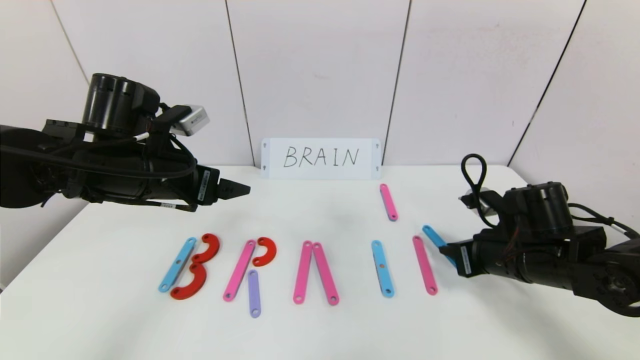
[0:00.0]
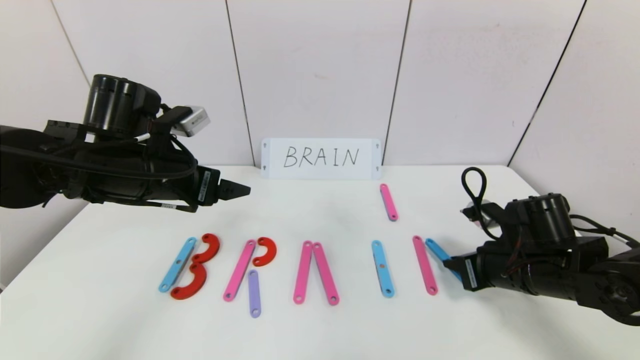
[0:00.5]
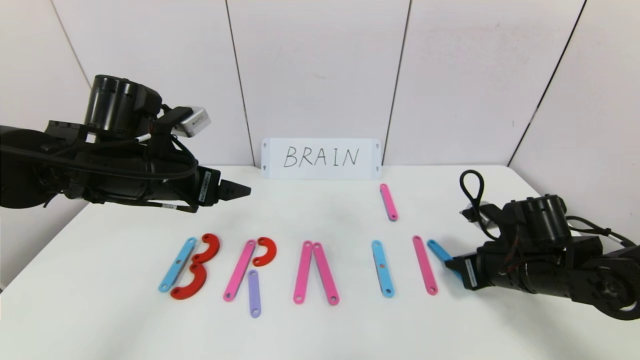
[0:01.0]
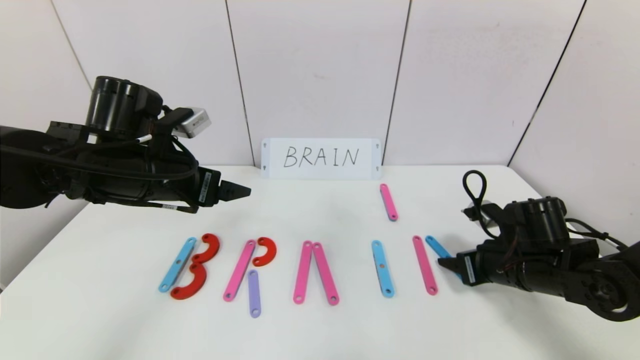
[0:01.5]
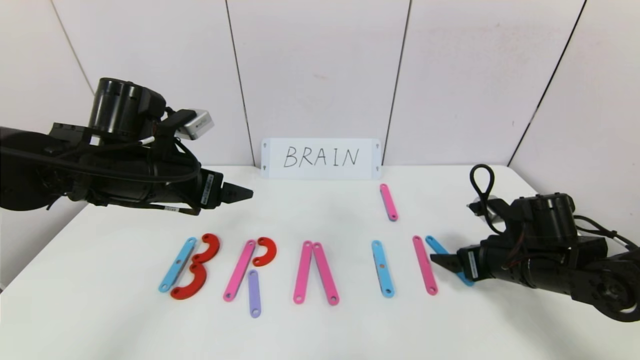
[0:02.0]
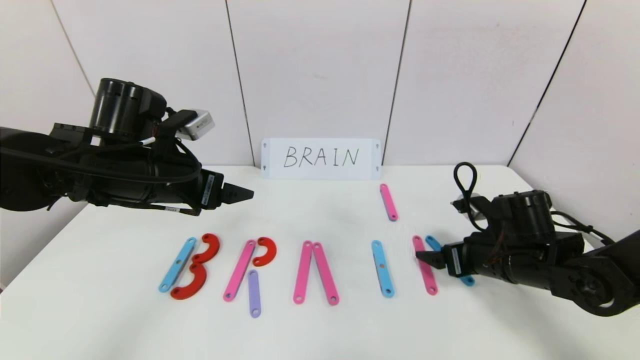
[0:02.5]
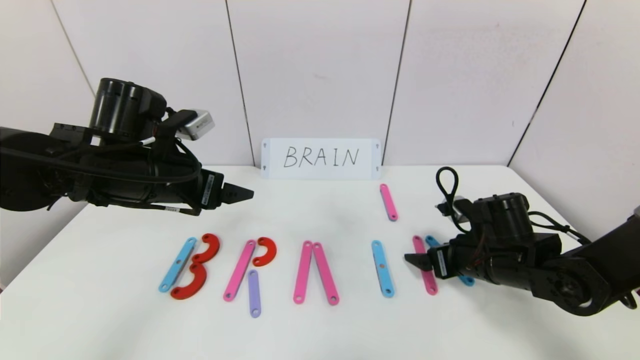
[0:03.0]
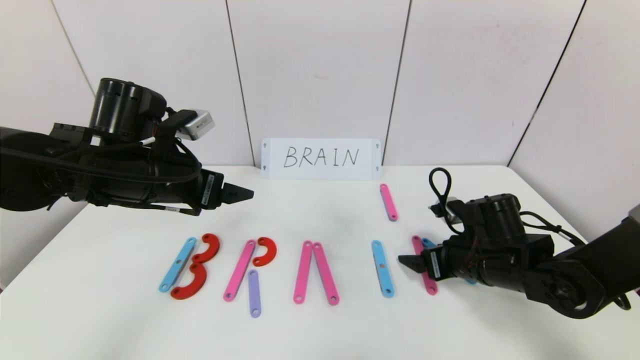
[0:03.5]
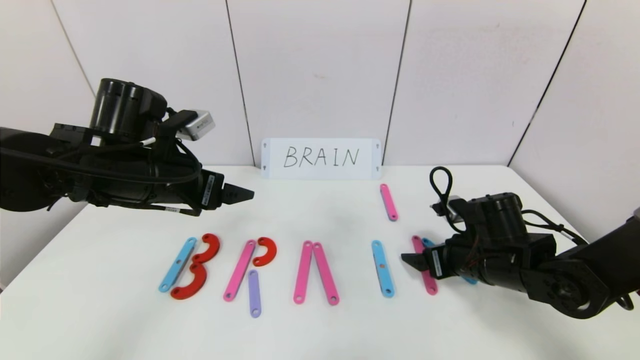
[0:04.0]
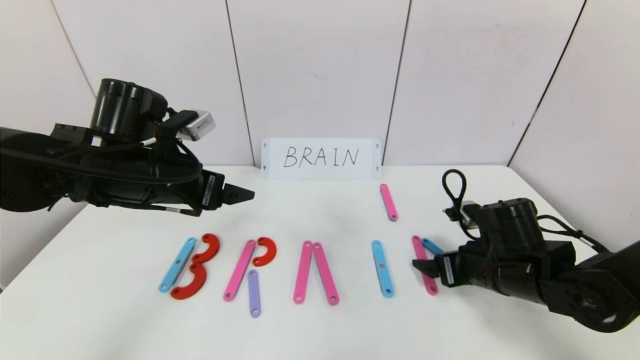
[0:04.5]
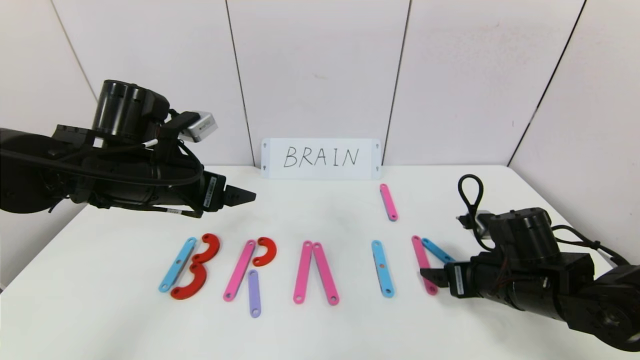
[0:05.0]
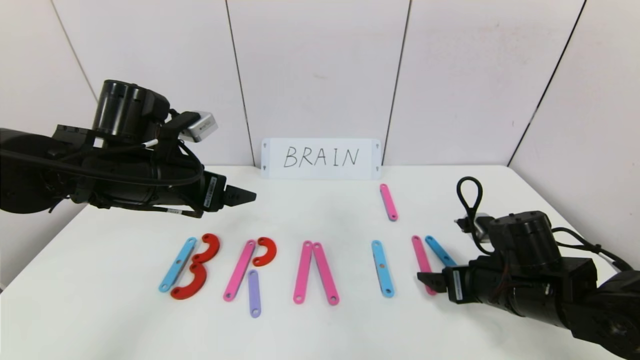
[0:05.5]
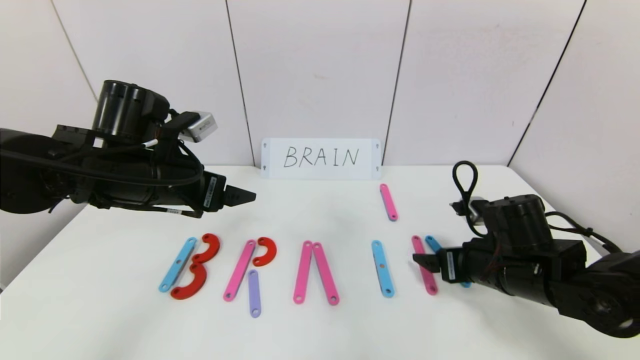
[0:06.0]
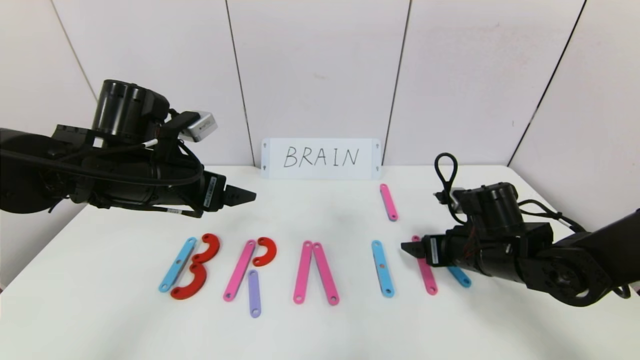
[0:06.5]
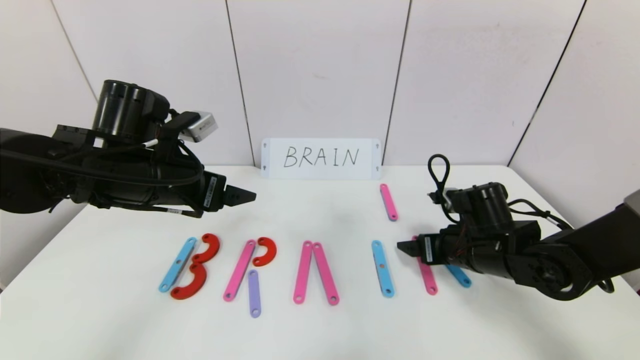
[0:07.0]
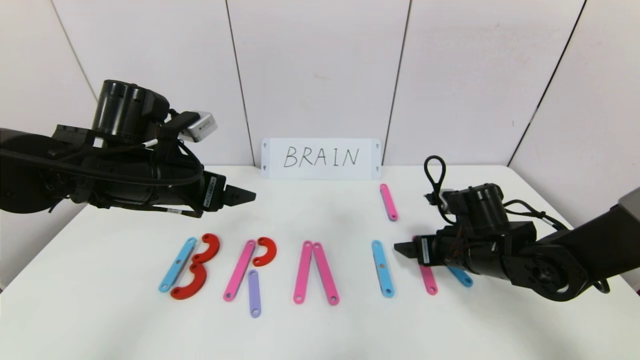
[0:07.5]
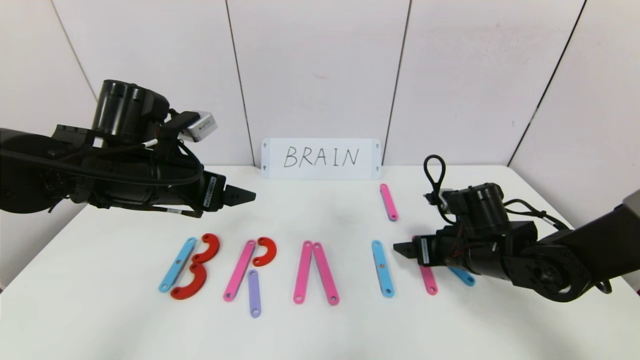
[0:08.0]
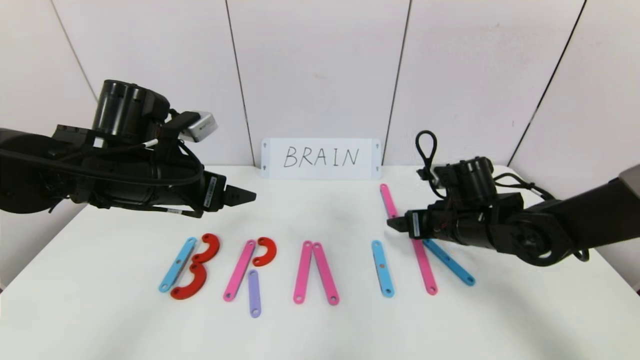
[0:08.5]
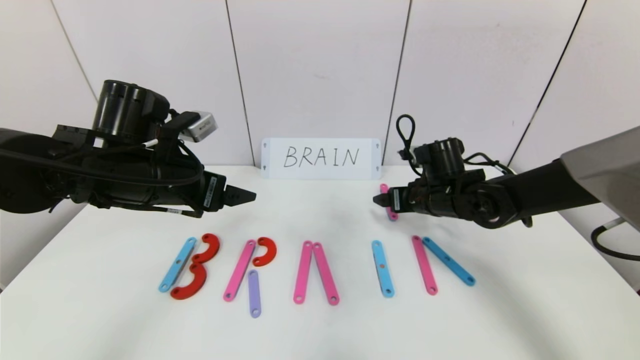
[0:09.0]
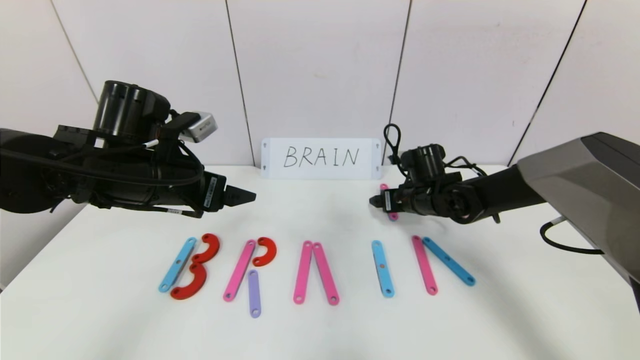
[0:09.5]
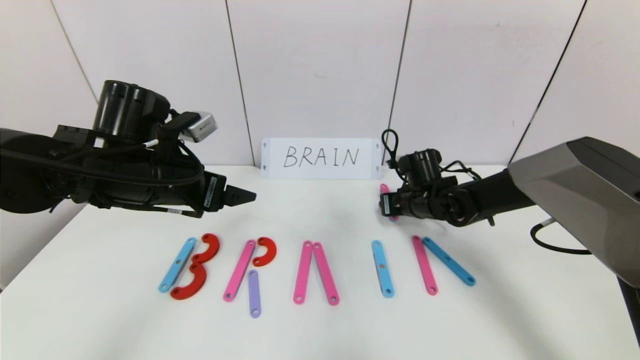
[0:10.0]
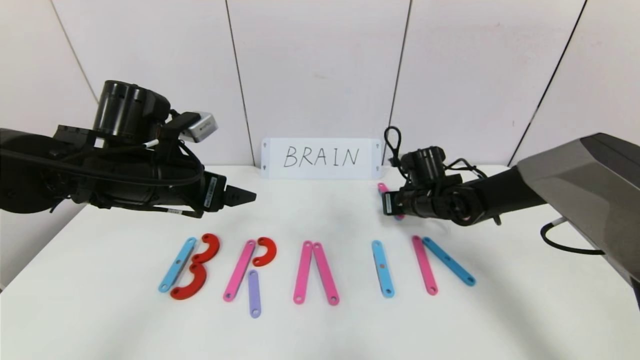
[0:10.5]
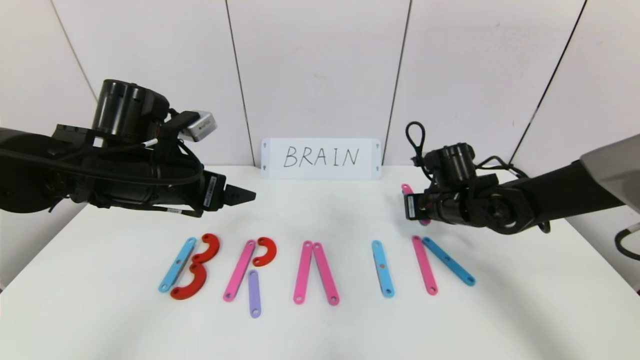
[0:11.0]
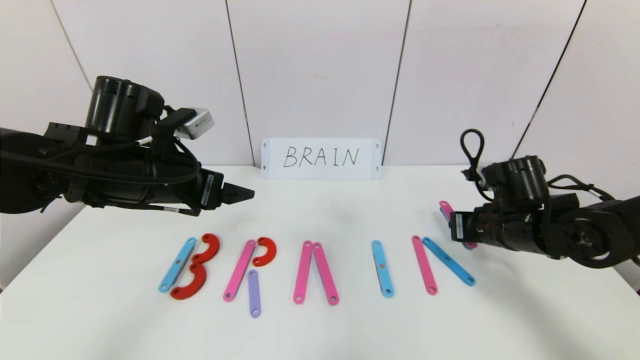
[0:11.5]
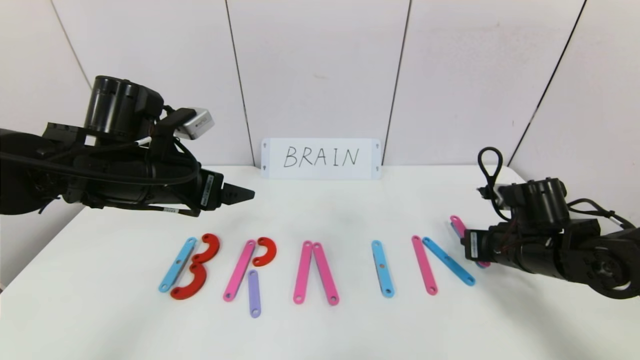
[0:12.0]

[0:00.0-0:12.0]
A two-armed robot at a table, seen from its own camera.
Task of the whole recording: rearrange the word baai as brain.
0:00.0 to 0:02.0: The right gripper opens its fingers.
0:02.0 to 0:04.0: The right gripper moves about 5 cm.
0:04.0 to 0:08.0: There are only small adjustments of the grippers.
0:08.0 to 0:10.0: The right gripper goes approximately 15 cm forward, and closes up.
0:10.0 to 0:12.0: The right gripper moves backward and to the right, some 15 cm.

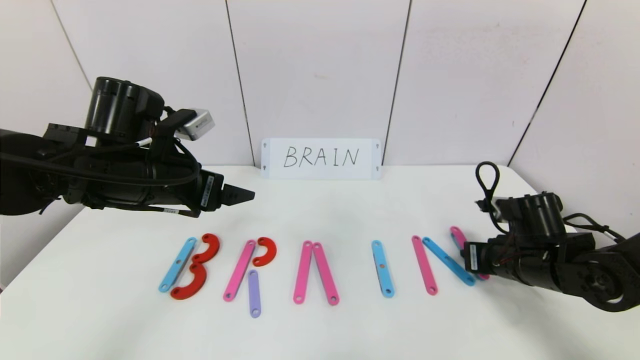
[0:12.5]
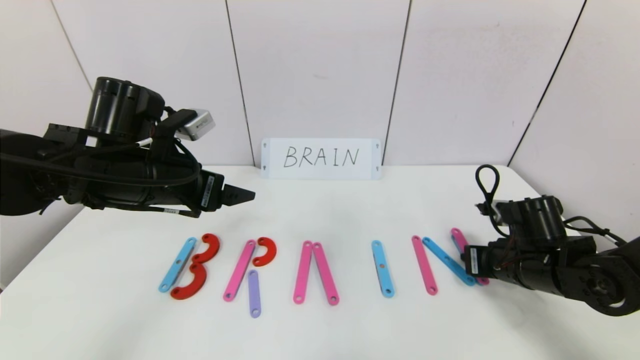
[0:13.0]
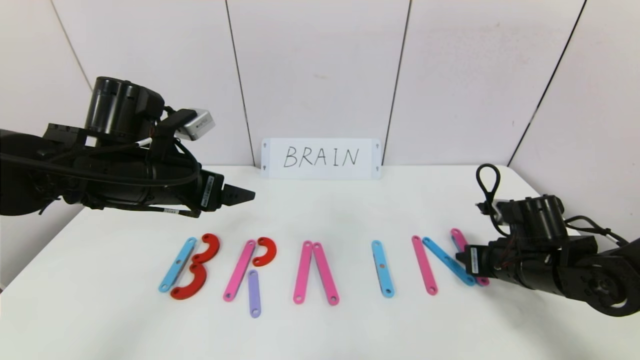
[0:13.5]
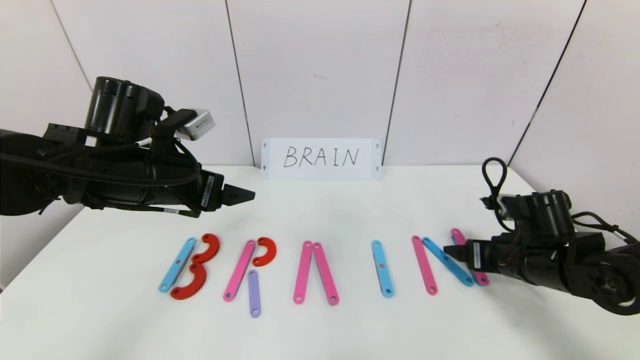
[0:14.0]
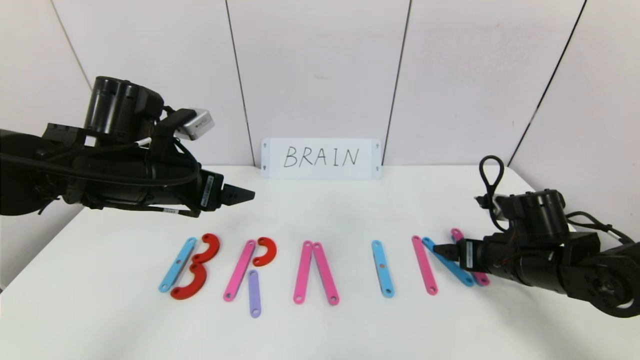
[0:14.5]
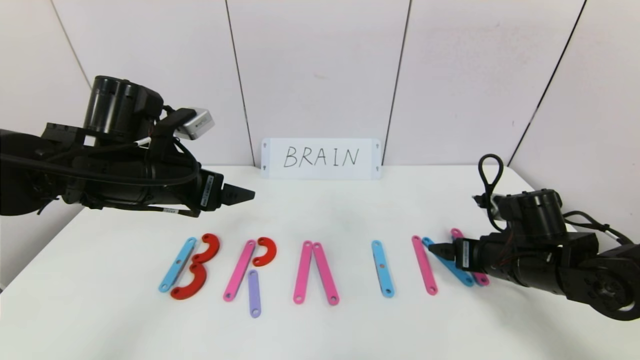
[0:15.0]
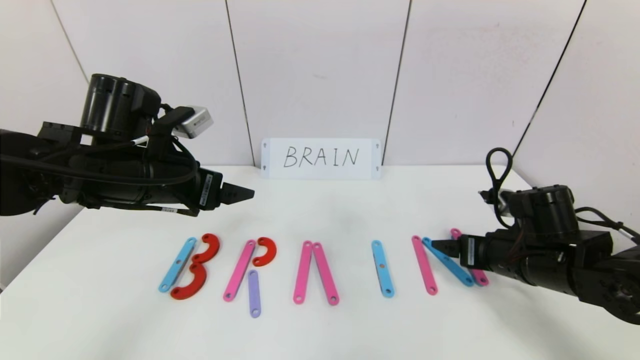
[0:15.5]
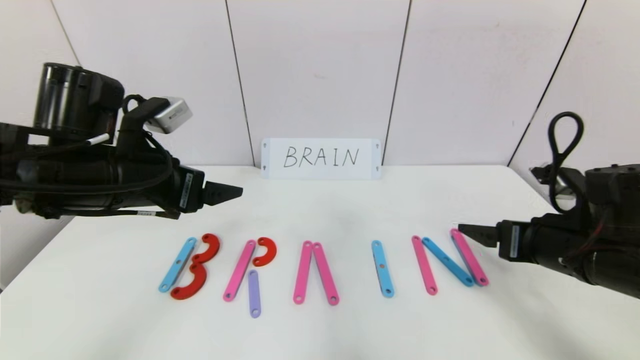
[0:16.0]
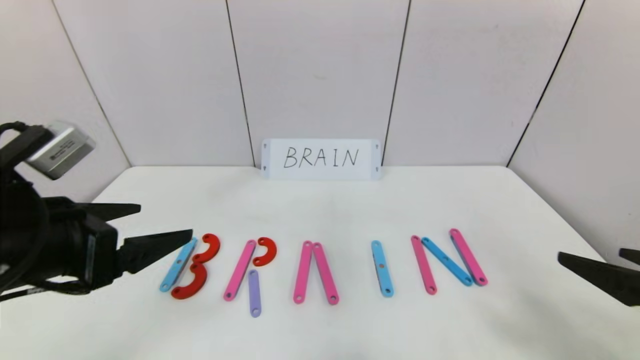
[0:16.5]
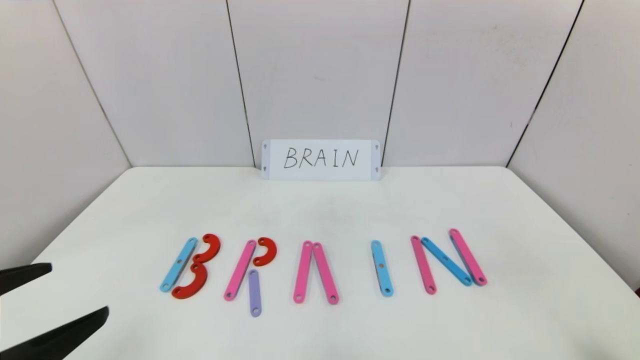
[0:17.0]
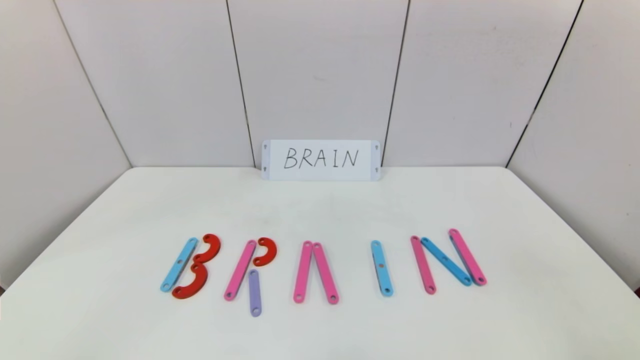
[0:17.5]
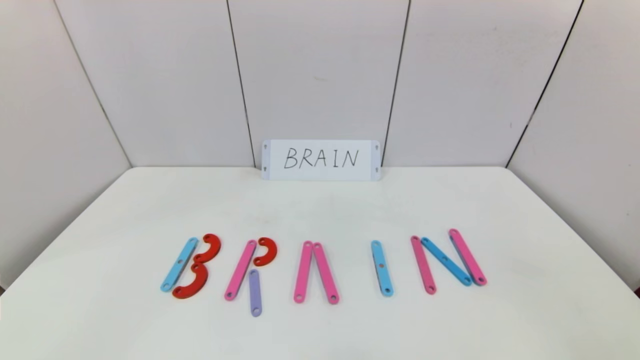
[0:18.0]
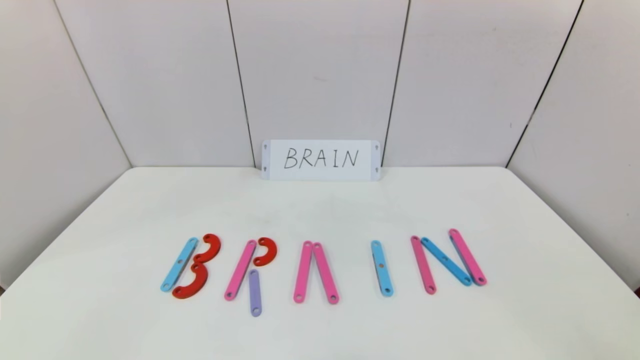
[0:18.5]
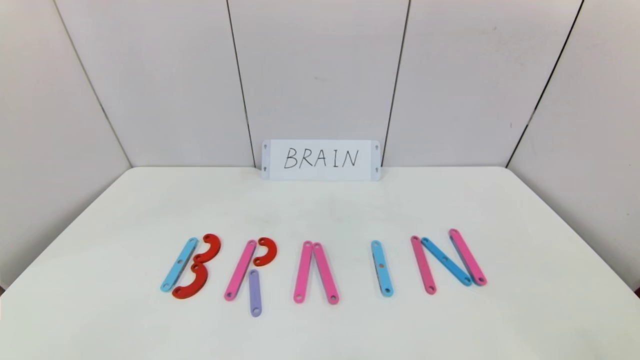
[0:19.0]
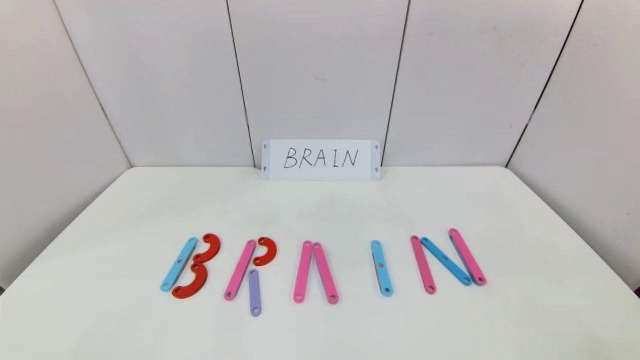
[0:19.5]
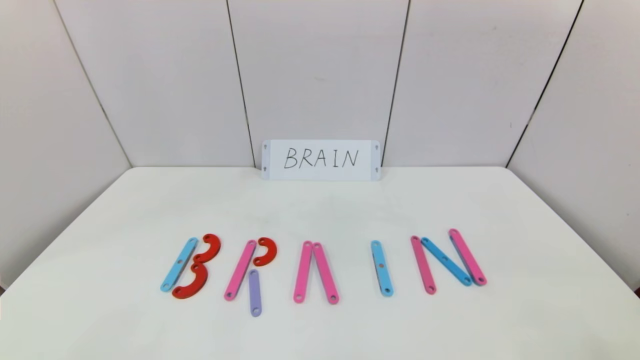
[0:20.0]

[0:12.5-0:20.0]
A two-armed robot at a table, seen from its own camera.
Task of the whole recording: rearrange the word baai as brain.
Step, 0:12.5 to 0:15.5: Place the character N after character I.
0:12.5 to 0:14.5: The right gripper opens its fingers.
0:14.5 to 0:16.5: The right gripper goes about 25 cm backward and upward. The left gripper is displaced backward by some 15 cm.
0:16.5 to 0:18.0: The two grippers go some 15 cm backward.
